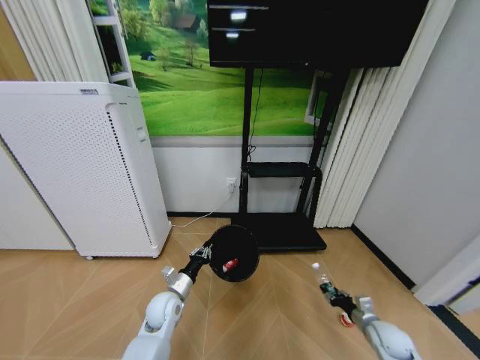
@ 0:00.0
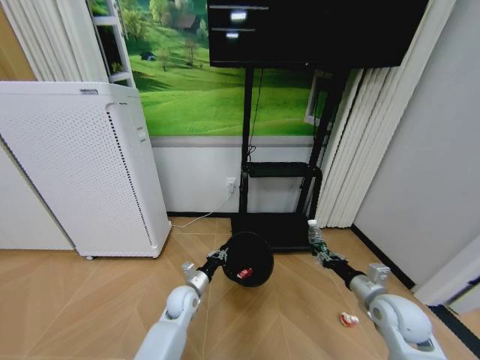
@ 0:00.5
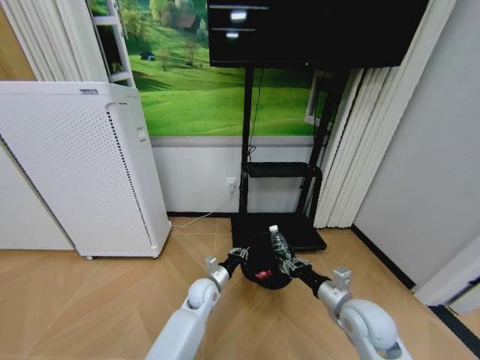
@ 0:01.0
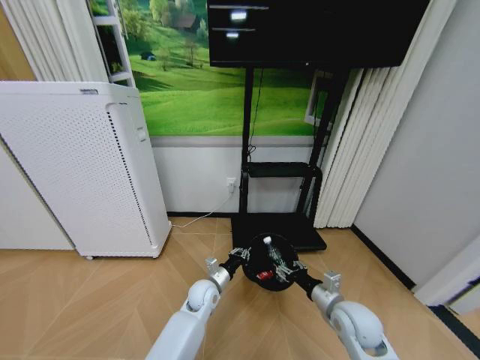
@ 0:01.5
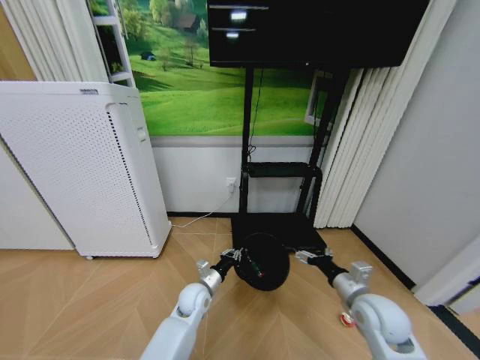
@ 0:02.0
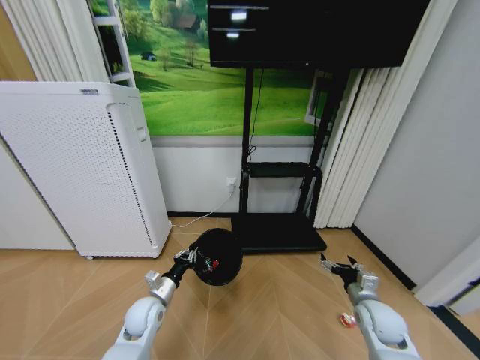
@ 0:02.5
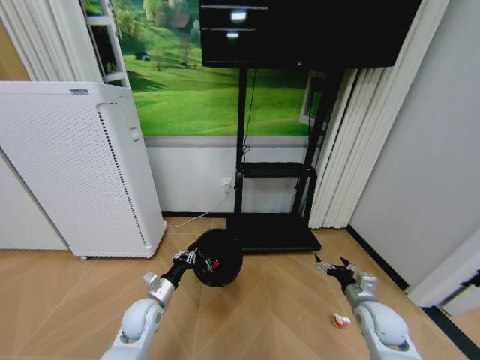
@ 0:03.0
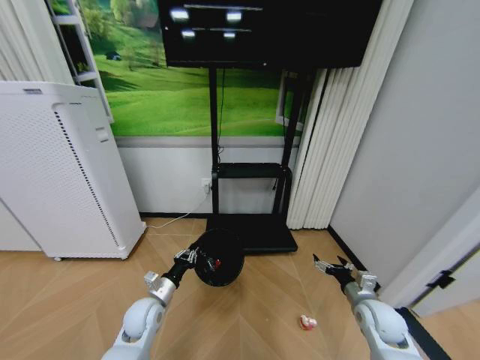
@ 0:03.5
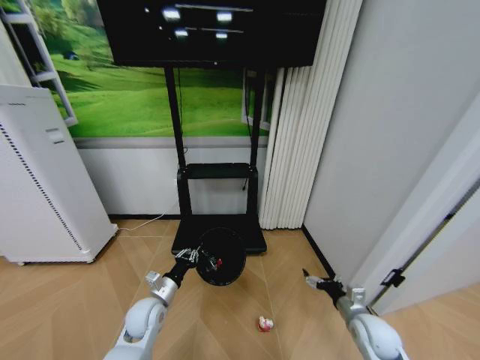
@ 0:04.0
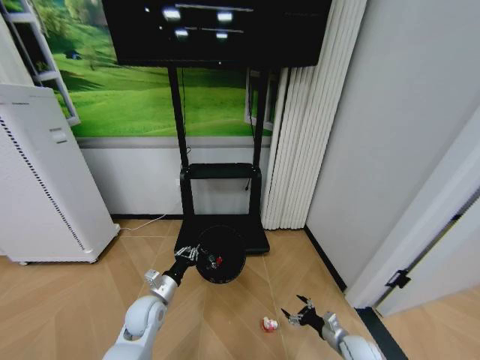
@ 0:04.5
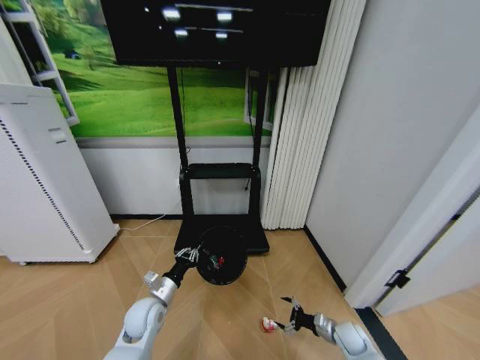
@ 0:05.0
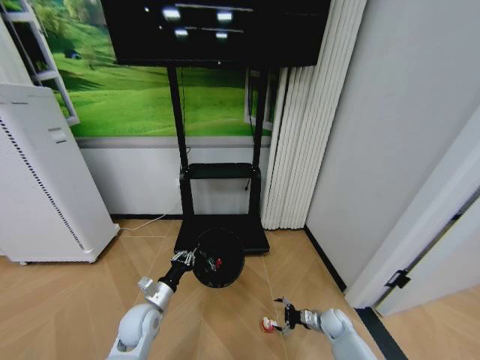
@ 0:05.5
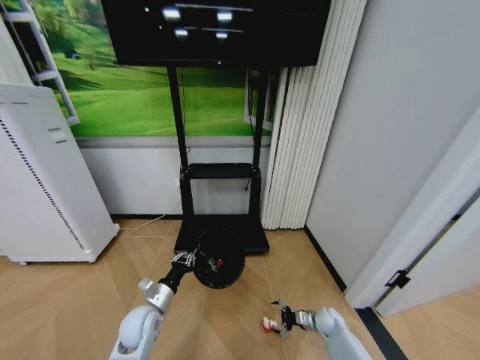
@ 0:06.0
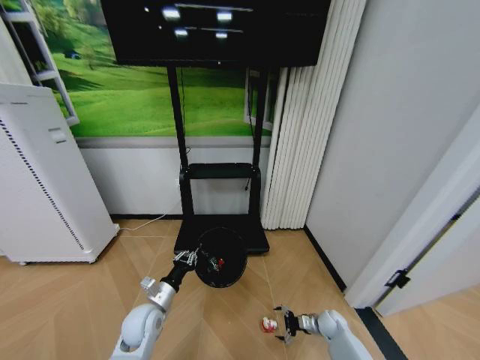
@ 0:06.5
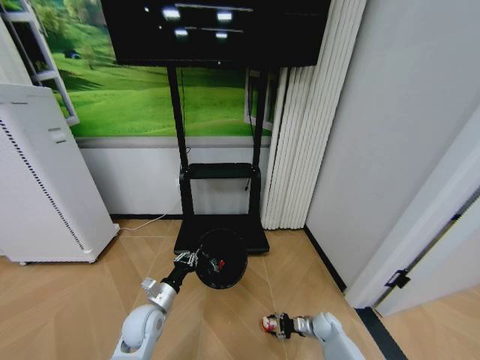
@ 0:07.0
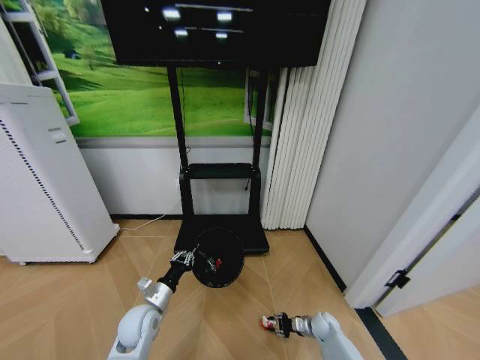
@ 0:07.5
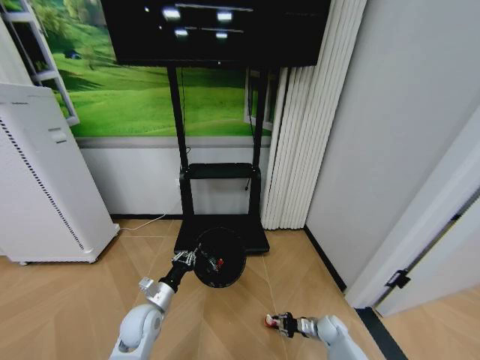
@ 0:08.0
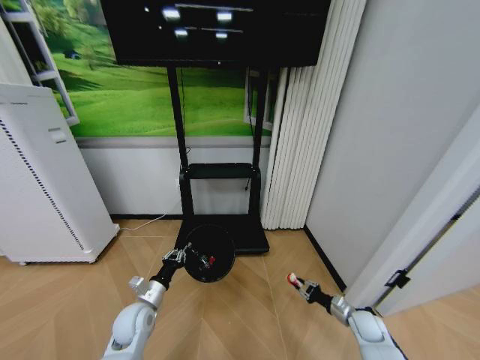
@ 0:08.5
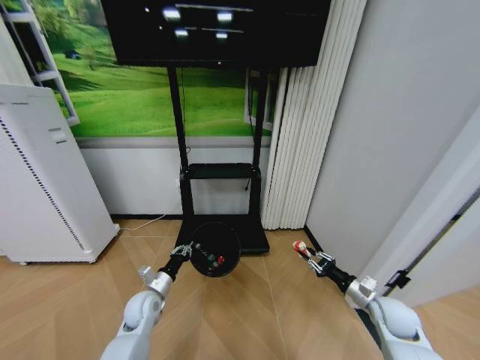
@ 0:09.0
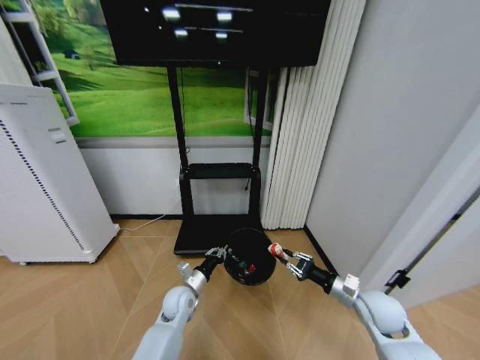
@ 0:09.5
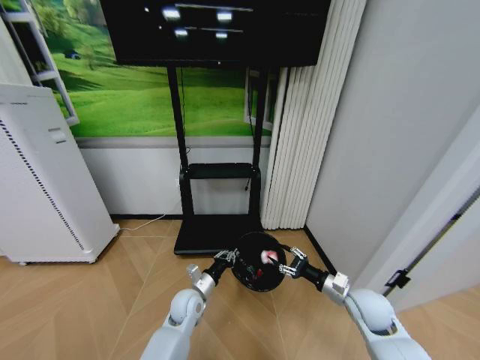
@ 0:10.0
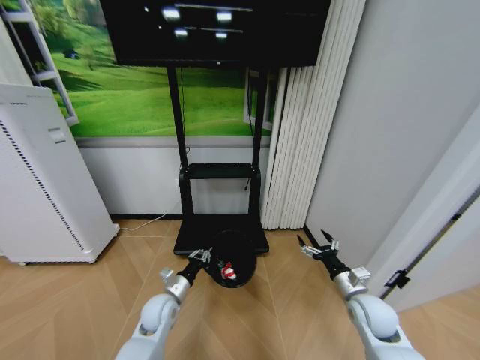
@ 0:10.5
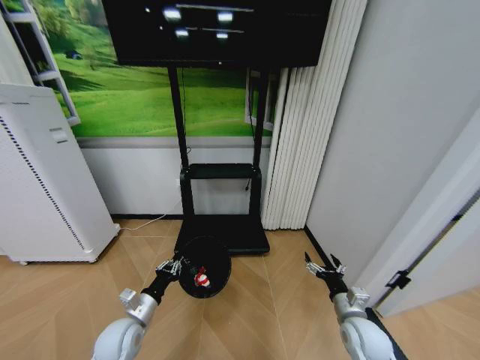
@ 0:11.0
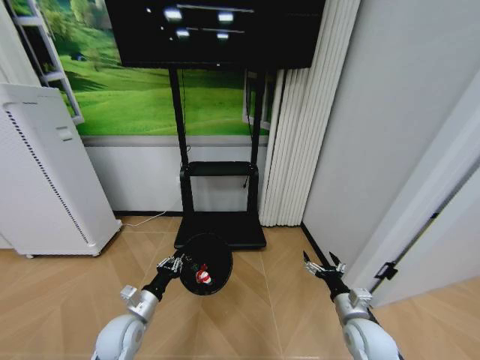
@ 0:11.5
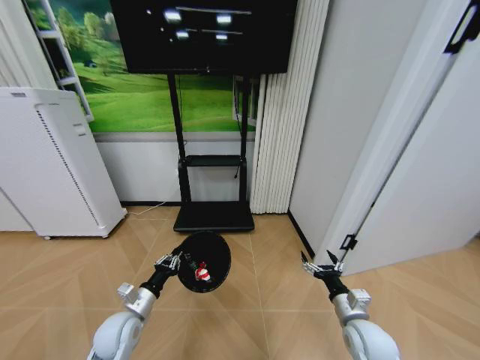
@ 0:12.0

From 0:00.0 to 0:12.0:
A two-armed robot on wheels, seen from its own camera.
Task of the whole recording: Pick up the trash bin and place the garbage on the floor into it.
From 0:00.0 to 0:02.0: The left gripper heads to the right, covering roughly 10 cm. Meanwhile the right gripper goes some 20 cm upward and to the left, and opens its fingers.
From 0:02.0 to 0:04.0: The right gripper is displaced downward by approximately 10 cm. The left gripper goes about 15 cm to the left and backward.
From 0:04.0 to 0:06.0: The right gripper is displaced downward and forward by about 20 cm.
From 0:06.0 to 0:08.0: The right gripper closes its fingers.
From 0:08.0 to 0:10.0: The right gripper shifts some 25 cm upward, and opens; the left gripper travels to the right and forward by approximately 10 cm.
From 0:10.0 to 0:12.0: The right gripper goes some 5 cm backward, and opens. Meanwhile the left gripper travels to the left and backward by about 15 cm.

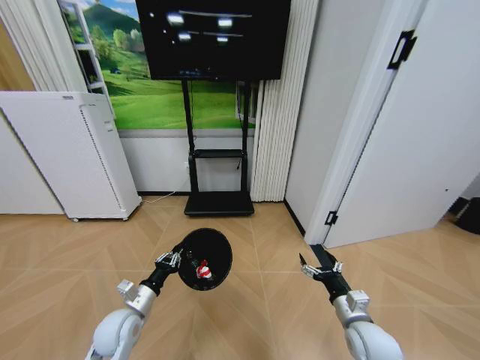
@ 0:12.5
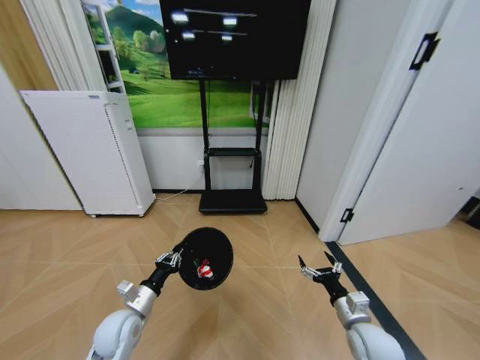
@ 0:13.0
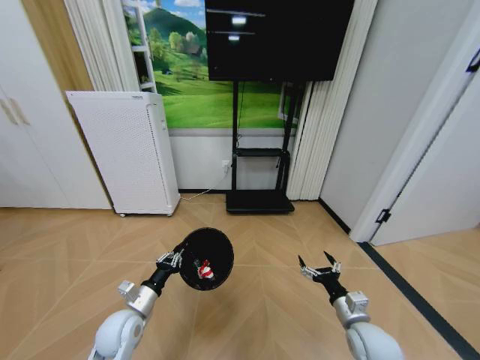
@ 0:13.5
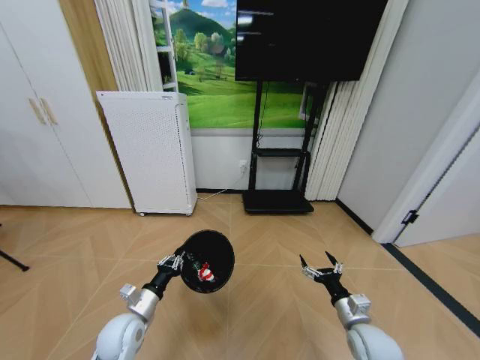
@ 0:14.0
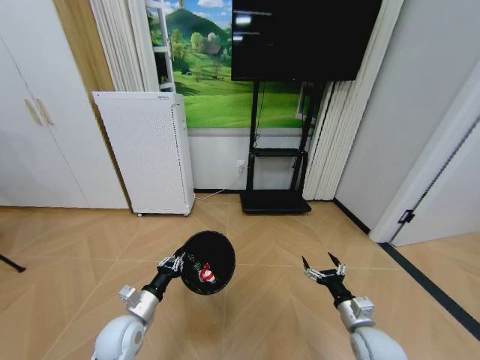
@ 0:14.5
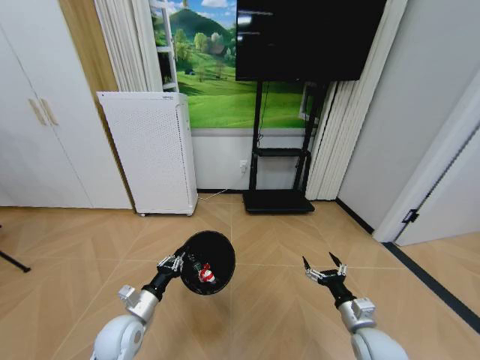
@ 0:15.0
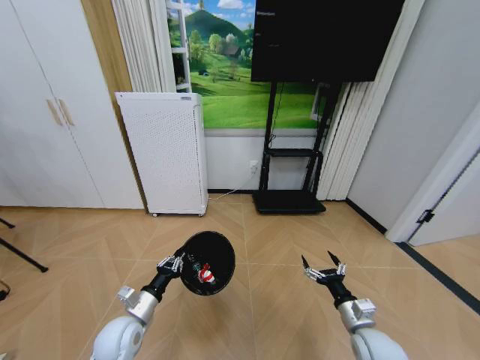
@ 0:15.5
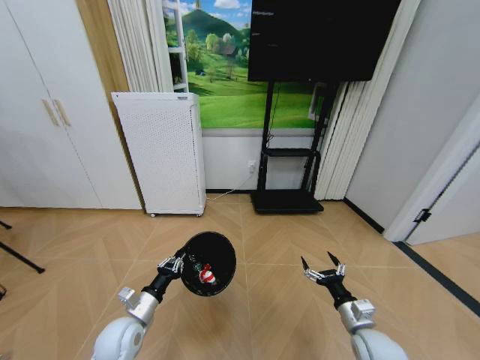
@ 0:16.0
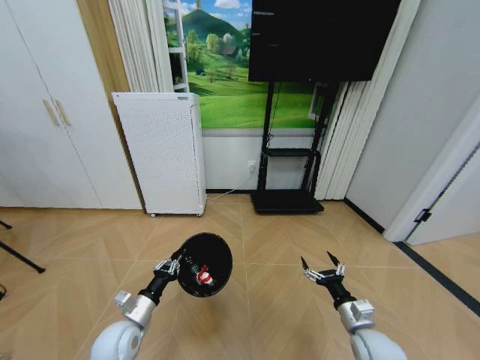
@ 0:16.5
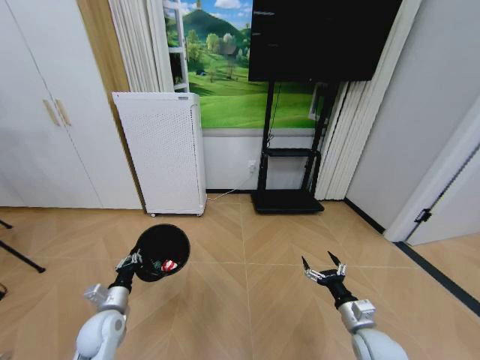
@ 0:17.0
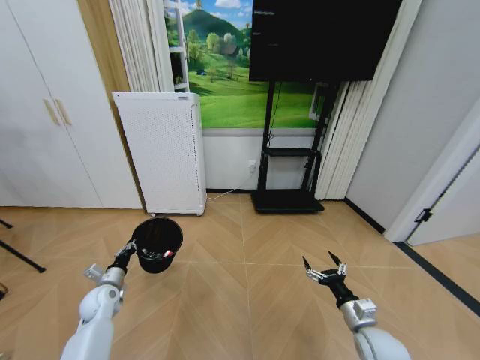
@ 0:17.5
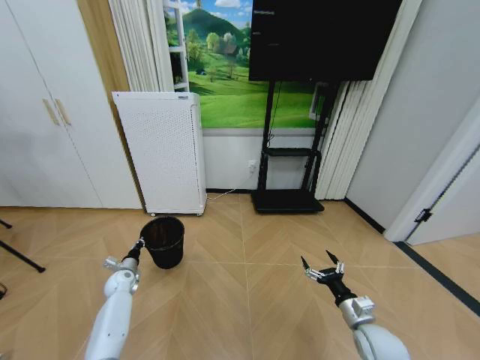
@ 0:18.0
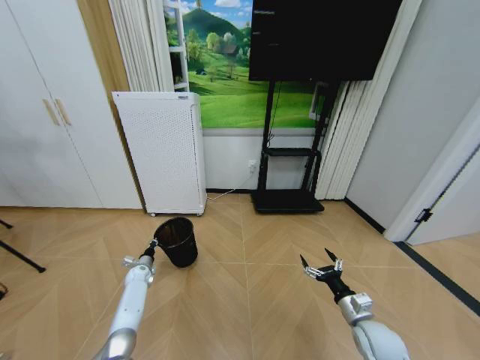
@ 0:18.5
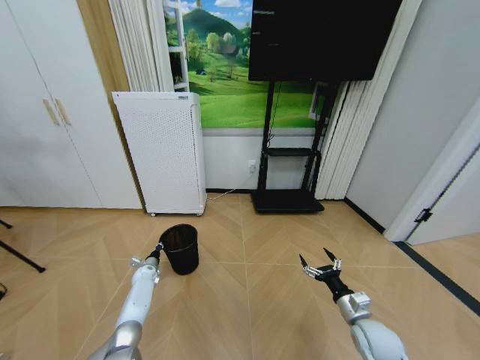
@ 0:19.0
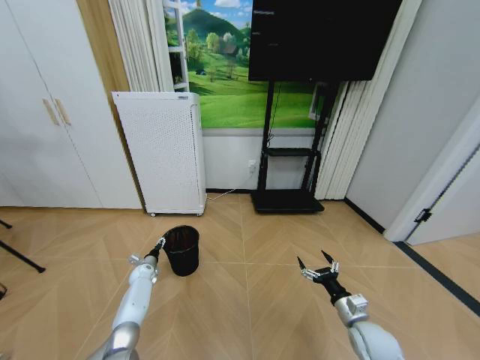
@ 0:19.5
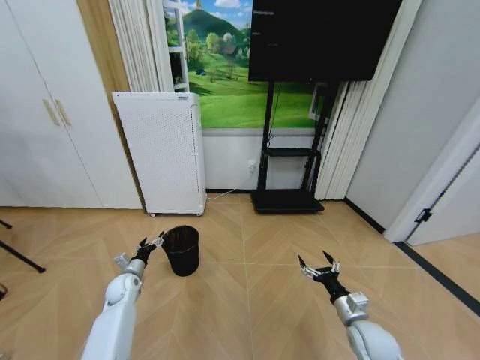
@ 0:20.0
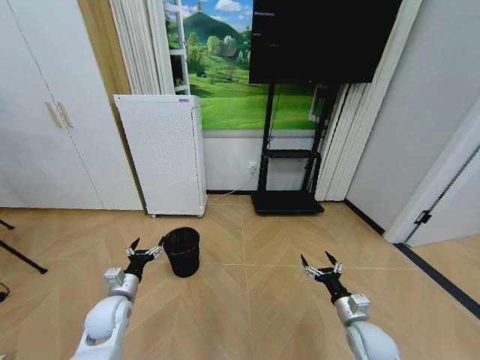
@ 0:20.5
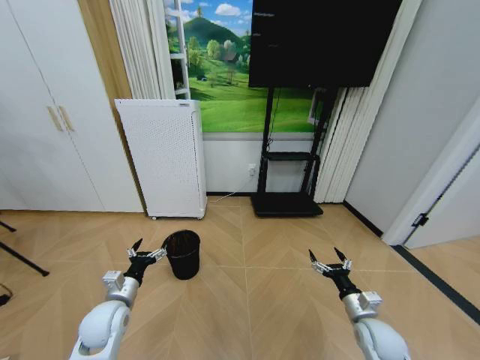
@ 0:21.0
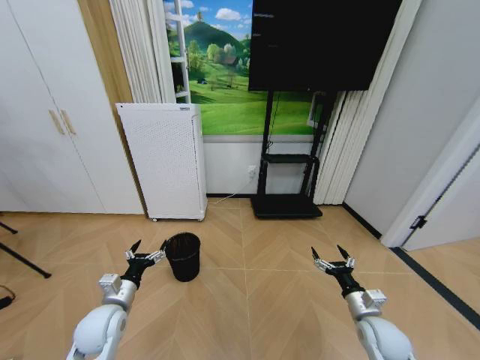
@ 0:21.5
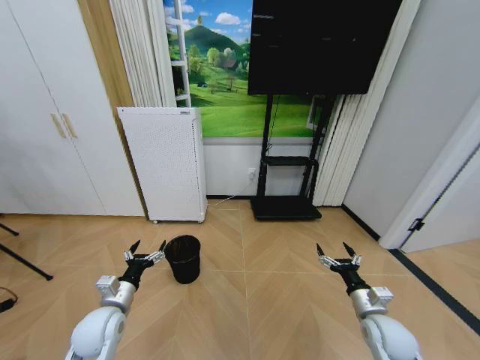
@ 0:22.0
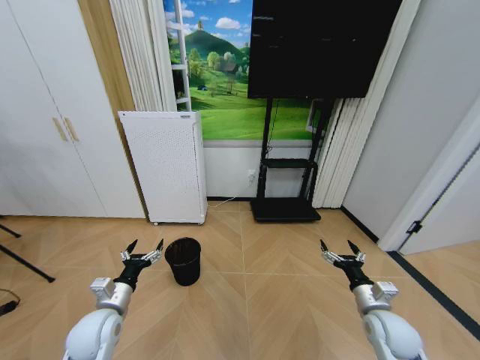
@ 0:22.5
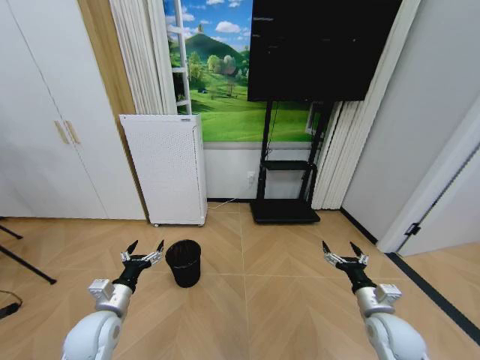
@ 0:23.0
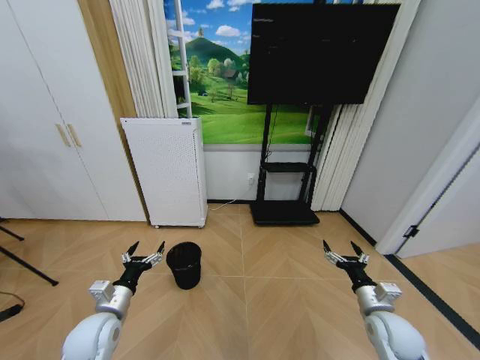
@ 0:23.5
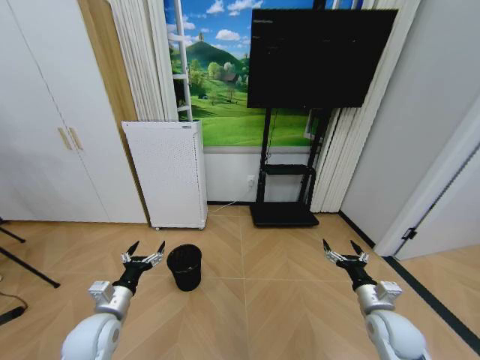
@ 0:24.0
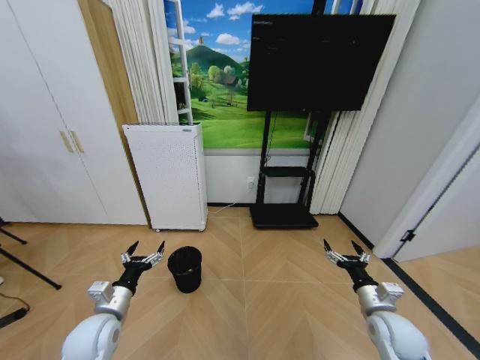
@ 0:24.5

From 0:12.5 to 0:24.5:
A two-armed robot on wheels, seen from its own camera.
Task of the whole recording: Pick up the trash bin and place the garbage on the floor into it.
From 0:16.5 to 0:18.5: The left gripper heads forward, downward and to the left, covering about 30 cm.
From 0:18.5 to 0:20.5: The left gripper is displaced backward and upward by approximately 25 cm, and opens up.
From 0:20.5 to 0:22.5: The right gripper shifts some 5 cm upward.
From 0:22.5 to 0:24.5: The grippers make only small movements.

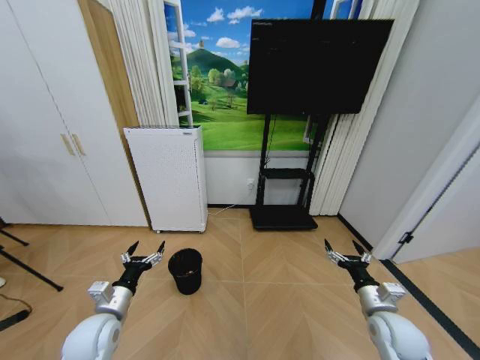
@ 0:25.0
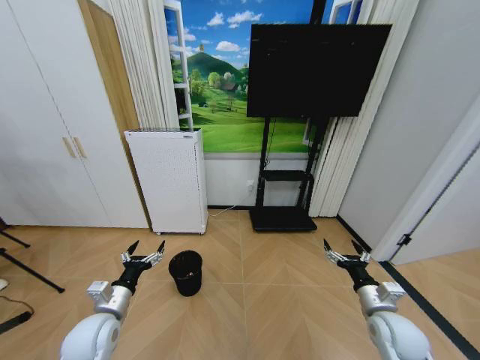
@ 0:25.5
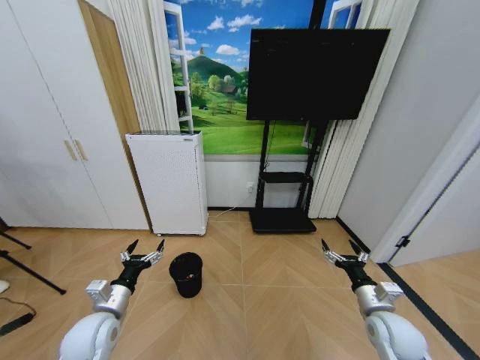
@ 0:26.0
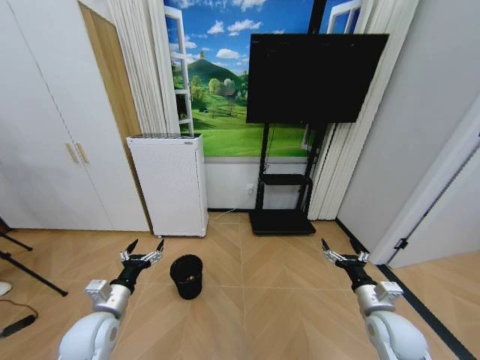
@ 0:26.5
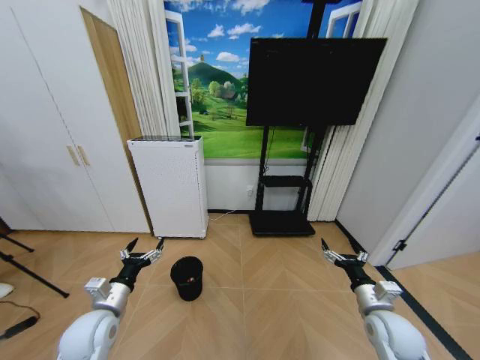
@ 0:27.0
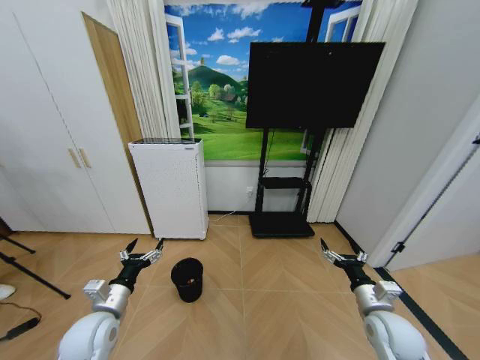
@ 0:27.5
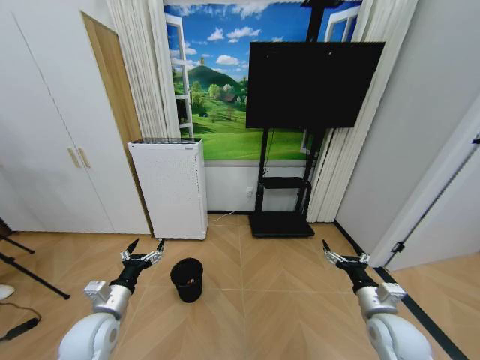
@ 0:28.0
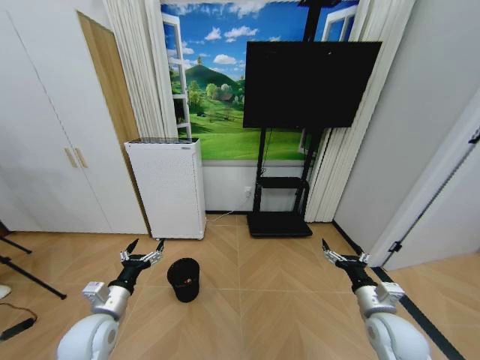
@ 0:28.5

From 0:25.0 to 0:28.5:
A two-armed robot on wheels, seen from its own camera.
Task of the whole recording: Pick up the trash bin and place the garbage on the floor into it.
From 0:25.0 to 0:27.0: The two grippers keep their place.
From 0:27.0 to 0:28.5: The grippers move only a little.
